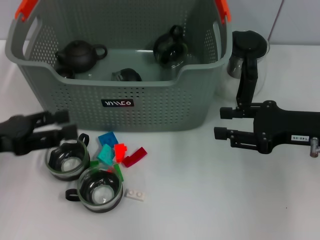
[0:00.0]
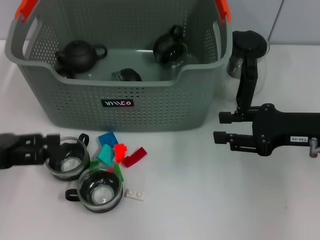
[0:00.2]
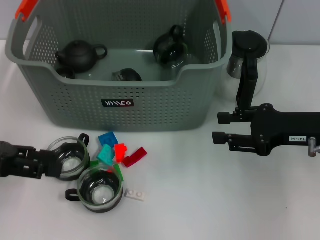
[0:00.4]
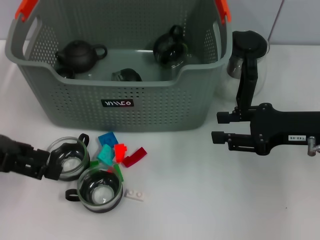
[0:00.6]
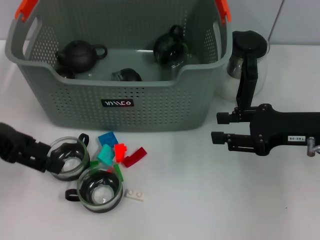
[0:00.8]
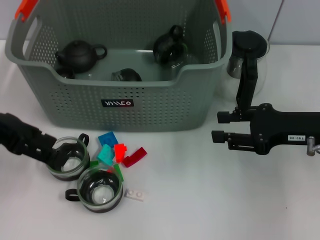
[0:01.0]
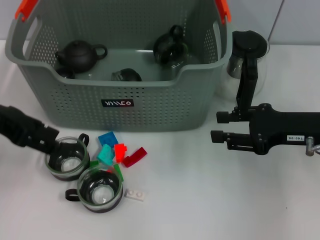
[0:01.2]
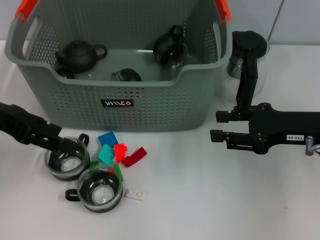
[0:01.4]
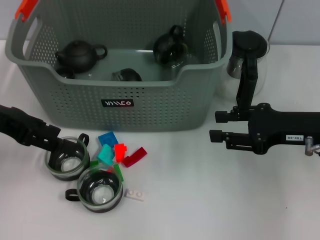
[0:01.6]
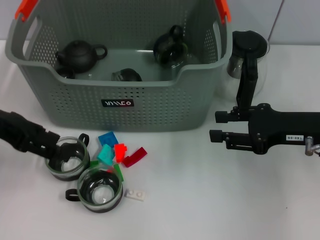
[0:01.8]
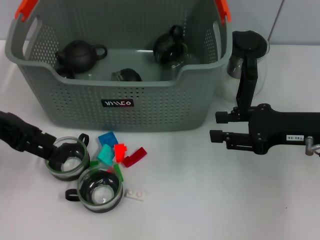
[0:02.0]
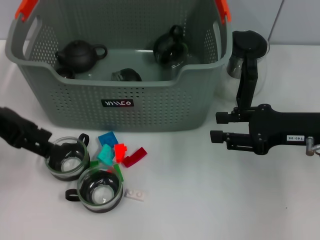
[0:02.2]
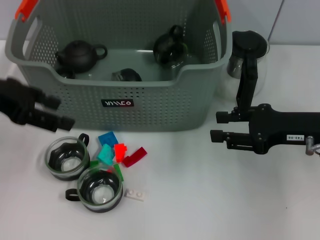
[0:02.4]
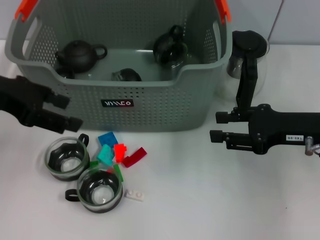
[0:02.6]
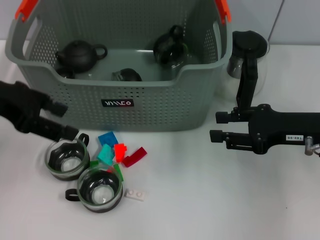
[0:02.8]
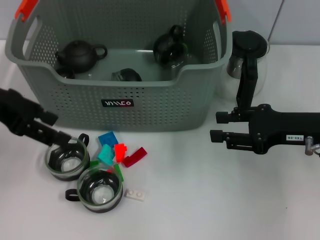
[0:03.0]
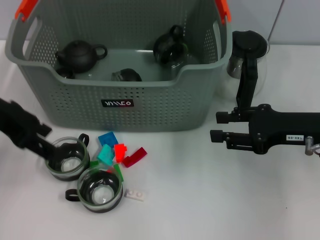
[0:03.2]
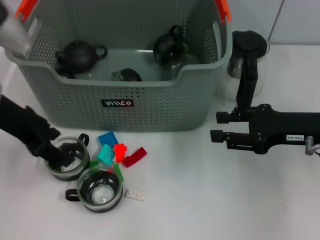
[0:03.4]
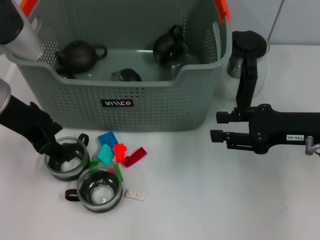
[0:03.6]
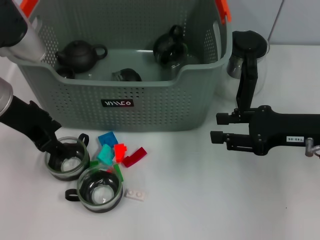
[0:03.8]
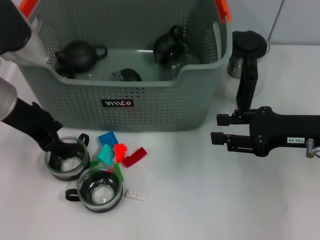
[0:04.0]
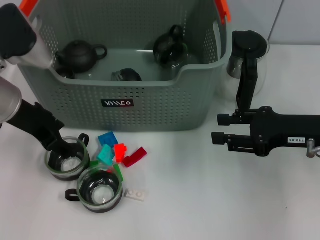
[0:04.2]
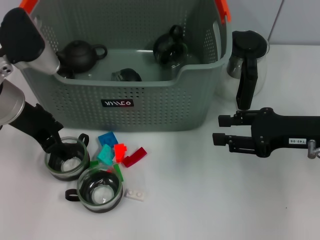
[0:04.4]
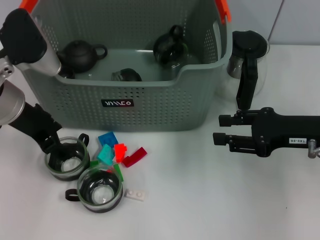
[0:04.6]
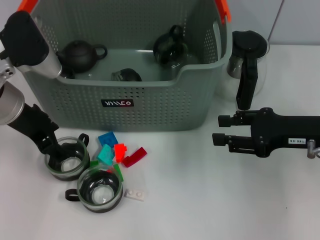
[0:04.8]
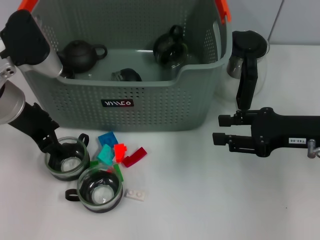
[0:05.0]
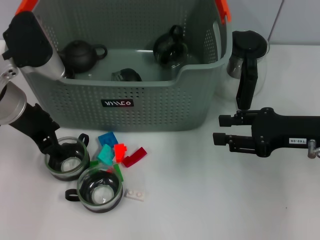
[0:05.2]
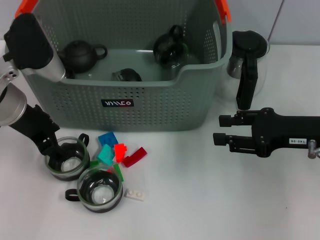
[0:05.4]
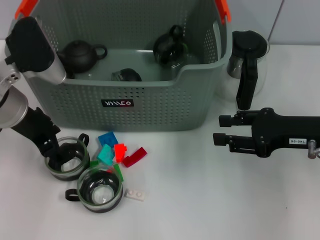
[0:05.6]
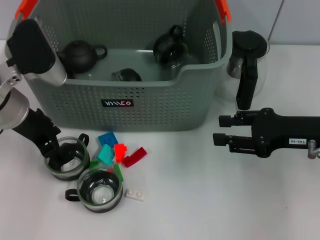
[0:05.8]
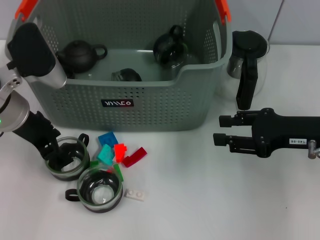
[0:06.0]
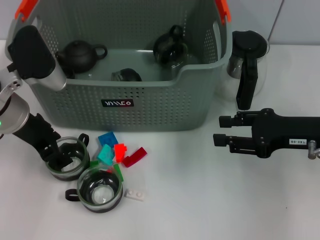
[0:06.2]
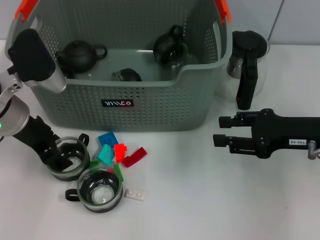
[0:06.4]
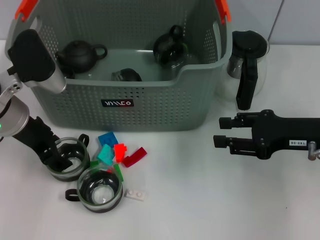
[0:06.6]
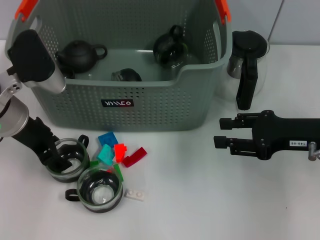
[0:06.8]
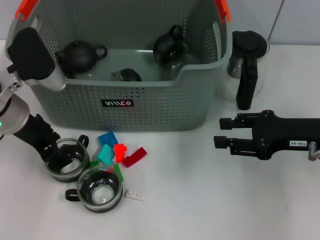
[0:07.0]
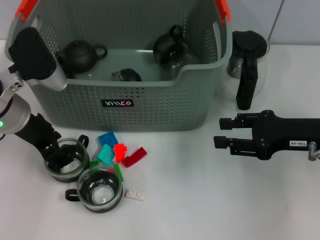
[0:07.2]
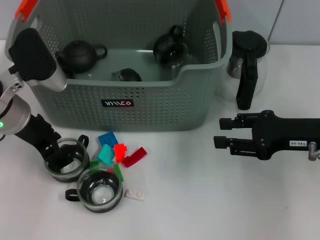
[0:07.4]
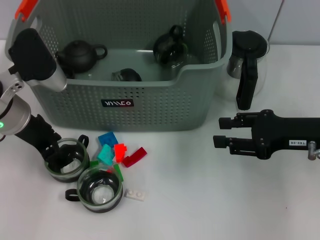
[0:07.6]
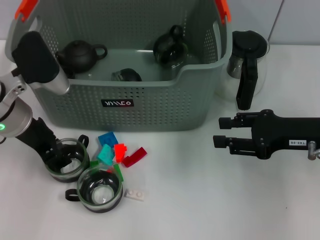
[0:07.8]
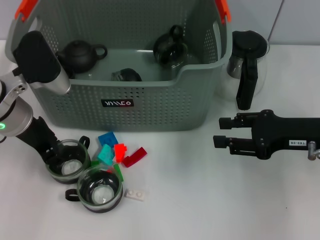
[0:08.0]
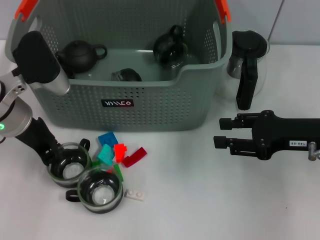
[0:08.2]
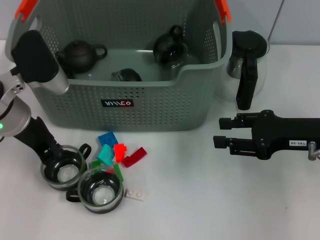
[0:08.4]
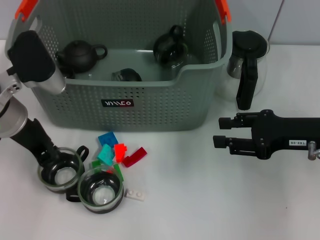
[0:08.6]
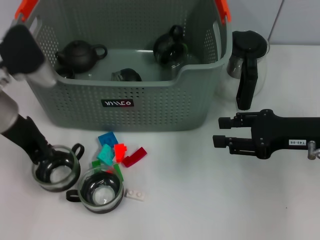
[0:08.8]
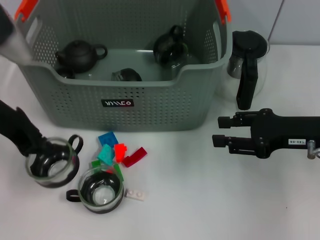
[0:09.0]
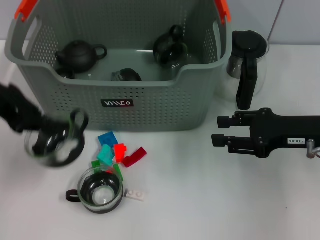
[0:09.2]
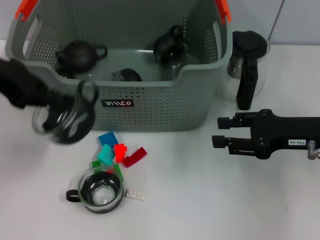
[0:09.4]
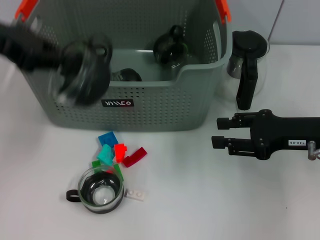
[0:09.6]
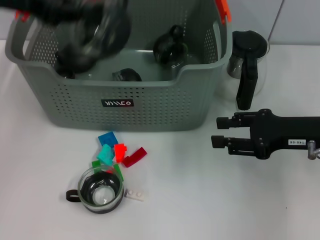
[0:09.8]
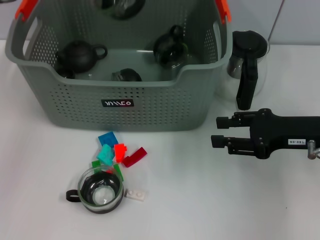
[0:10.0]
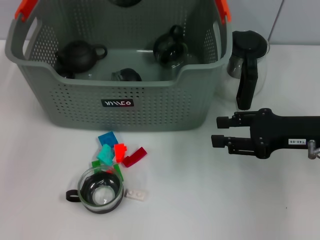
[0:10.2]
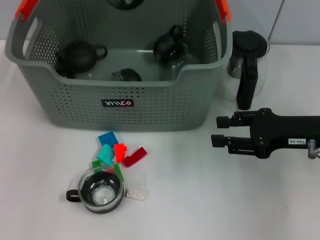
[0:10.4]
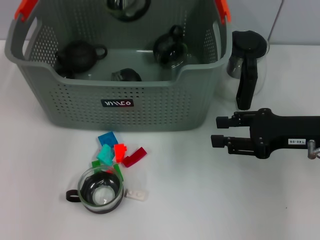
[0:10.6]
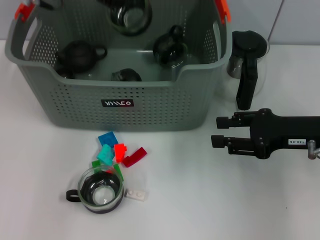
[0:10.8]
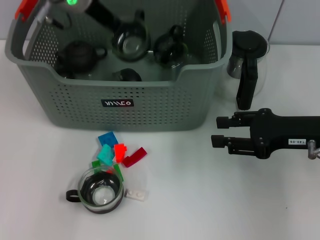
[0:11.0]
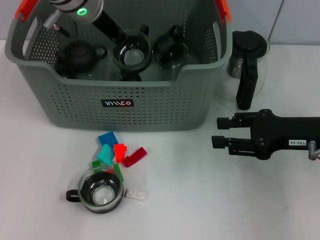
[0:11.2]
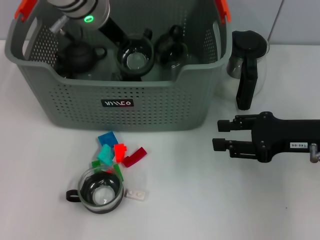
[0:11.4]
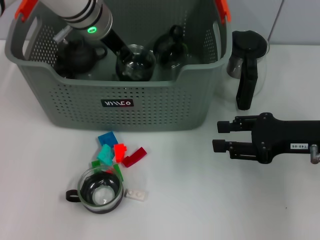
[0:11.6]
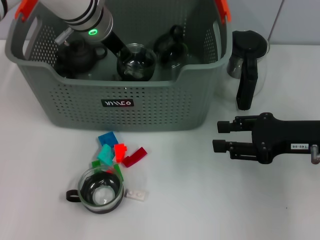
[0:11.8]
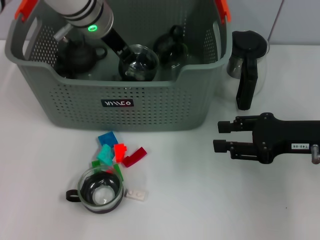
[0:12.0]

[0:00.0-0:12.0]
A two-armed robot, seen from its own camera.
Task of the whole recording: pick up the teacup on the table and place it into the storage bin, pick up the block on the table and place it into the storage bin.
Step, 0:00.0 to 0:08.8: Grasp the cup with left gripper.
0:00.0 to 0:01.6: The left gripper heads upward and forward, covering approximately 10 cm.
0:01.6 to 0:03.0: The grippers move only a little.
0:03.0 to 0:04.4: The left gripper goes roughly 10 cm downward and to the right.
0:04.4 to 0:06.0: The grippers make only small movements.
0:06.0 to 0:07.6: The two grippers keep their place.
0:07.6 to 0:09.0: The left gripper shifts approximately 5 cm upward, and closes its fingers.
0:09.0 to 0:10.4: The left gripper shifts approximately 15 cm upward and forward.
0:10.4 to 0:12.0: The left gripper is displaced downward and to the right by roughly 15 cm.

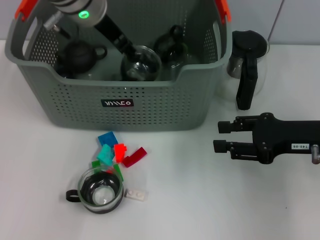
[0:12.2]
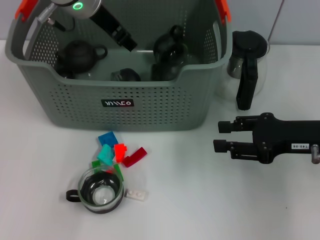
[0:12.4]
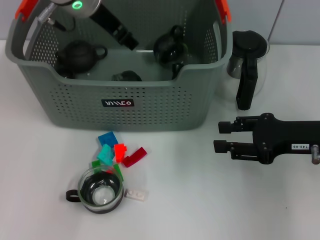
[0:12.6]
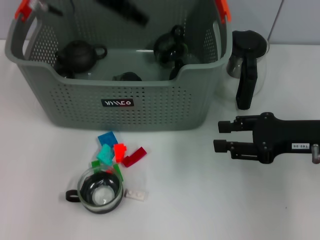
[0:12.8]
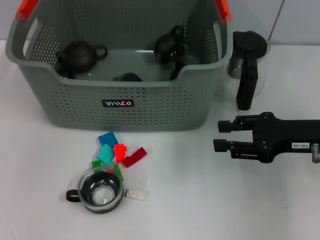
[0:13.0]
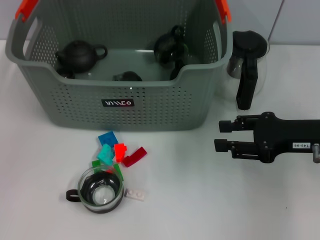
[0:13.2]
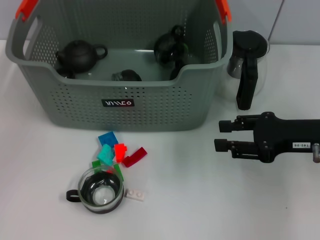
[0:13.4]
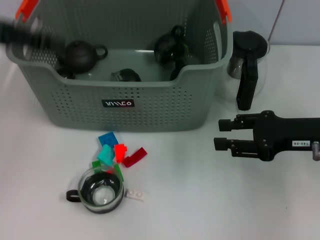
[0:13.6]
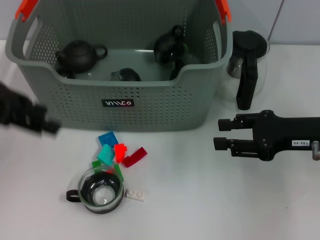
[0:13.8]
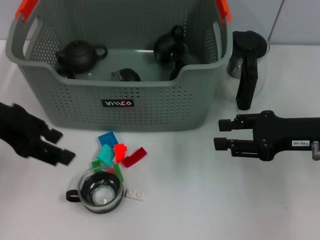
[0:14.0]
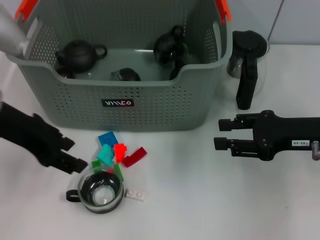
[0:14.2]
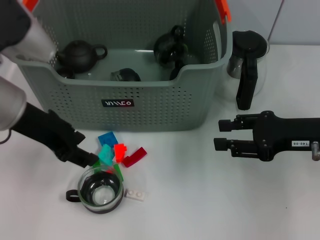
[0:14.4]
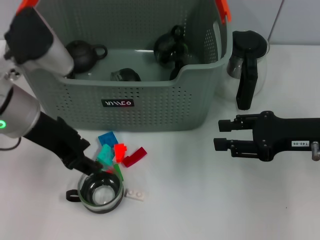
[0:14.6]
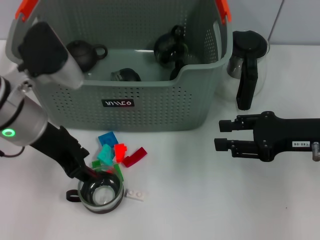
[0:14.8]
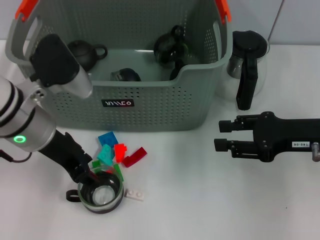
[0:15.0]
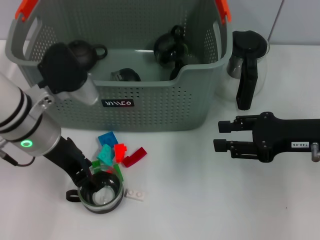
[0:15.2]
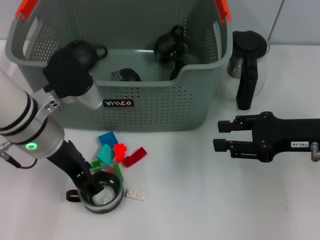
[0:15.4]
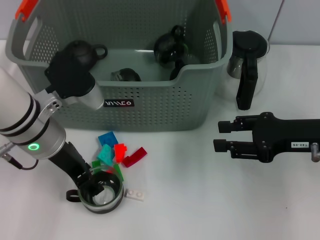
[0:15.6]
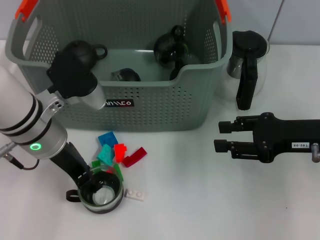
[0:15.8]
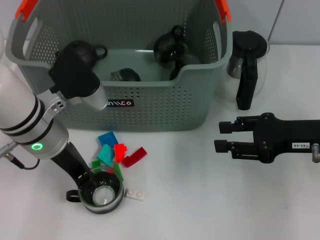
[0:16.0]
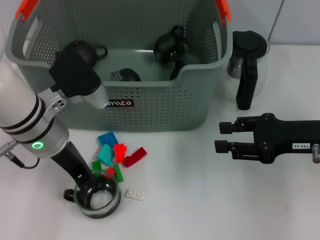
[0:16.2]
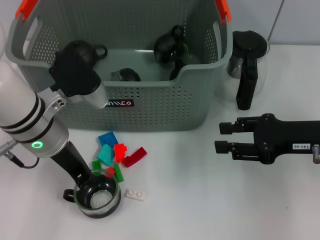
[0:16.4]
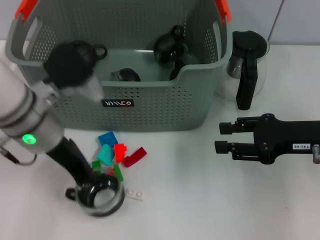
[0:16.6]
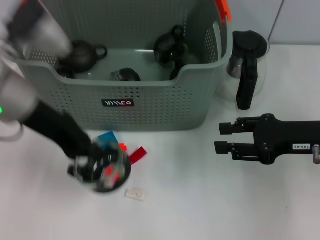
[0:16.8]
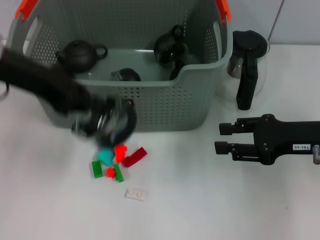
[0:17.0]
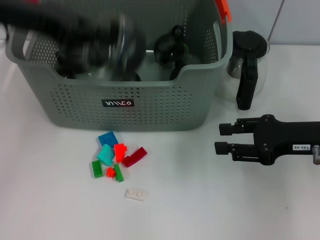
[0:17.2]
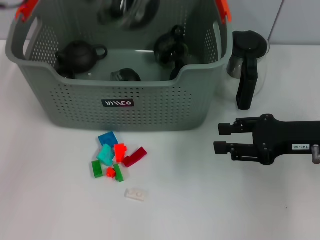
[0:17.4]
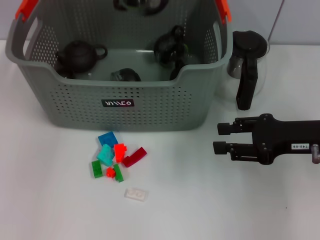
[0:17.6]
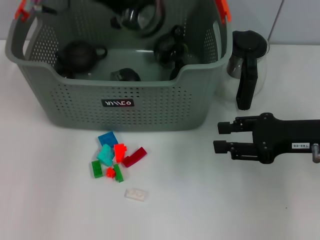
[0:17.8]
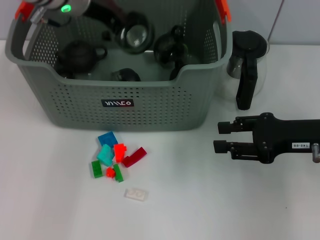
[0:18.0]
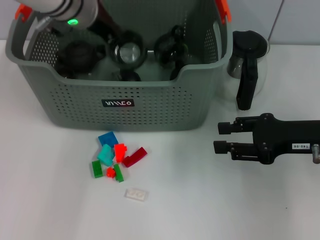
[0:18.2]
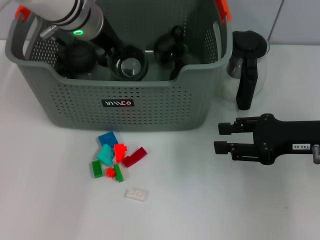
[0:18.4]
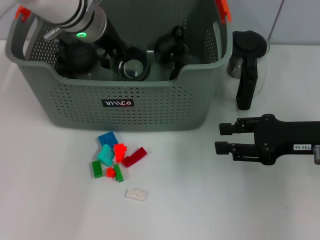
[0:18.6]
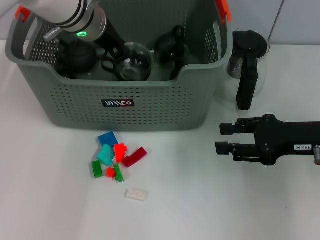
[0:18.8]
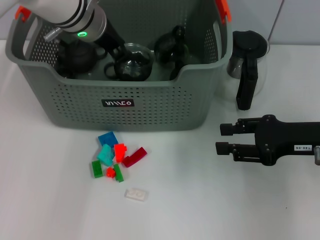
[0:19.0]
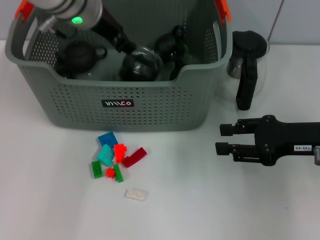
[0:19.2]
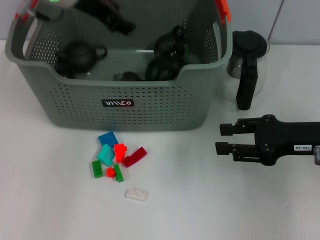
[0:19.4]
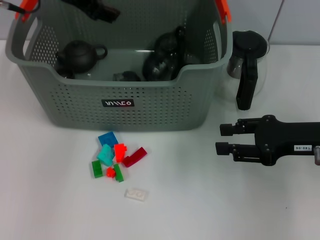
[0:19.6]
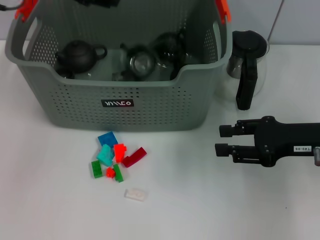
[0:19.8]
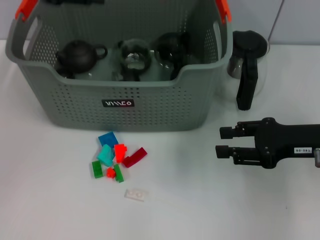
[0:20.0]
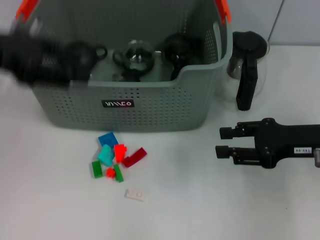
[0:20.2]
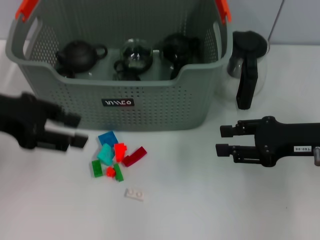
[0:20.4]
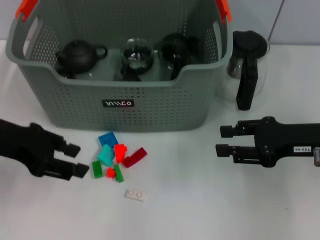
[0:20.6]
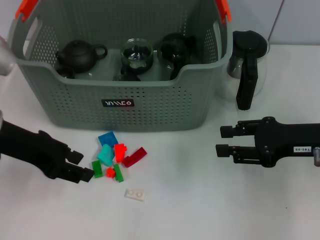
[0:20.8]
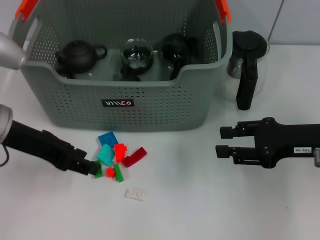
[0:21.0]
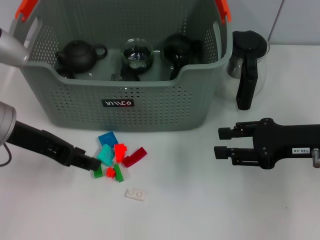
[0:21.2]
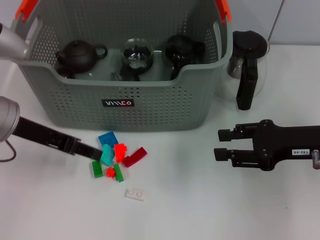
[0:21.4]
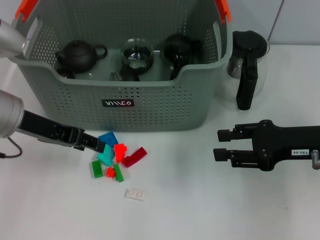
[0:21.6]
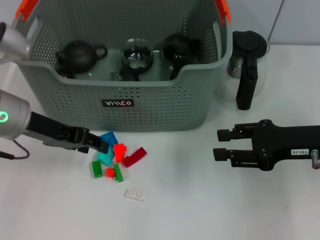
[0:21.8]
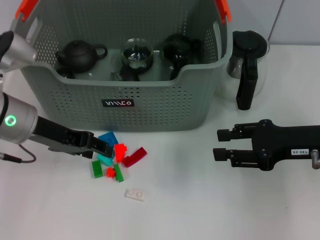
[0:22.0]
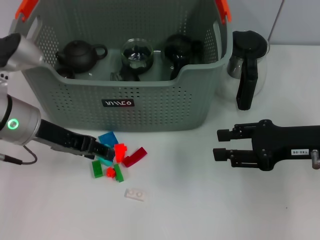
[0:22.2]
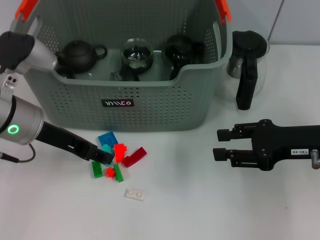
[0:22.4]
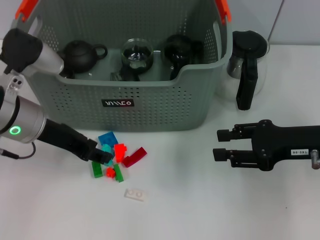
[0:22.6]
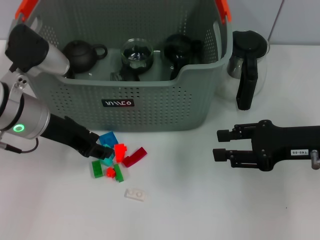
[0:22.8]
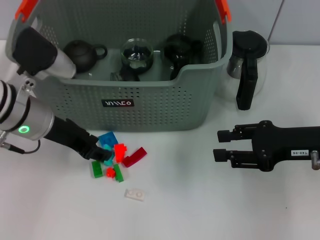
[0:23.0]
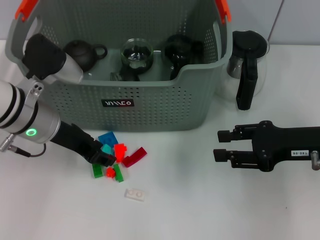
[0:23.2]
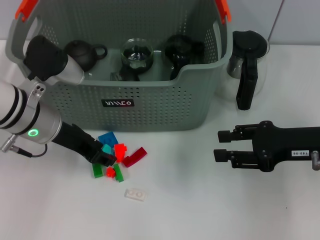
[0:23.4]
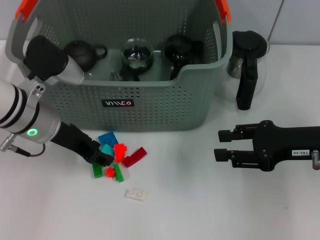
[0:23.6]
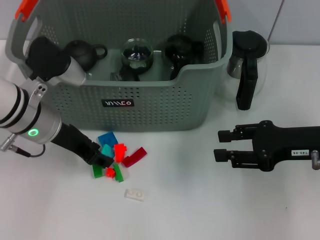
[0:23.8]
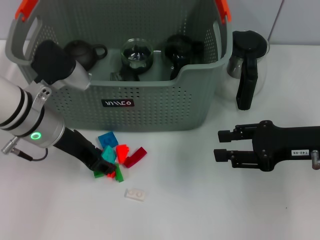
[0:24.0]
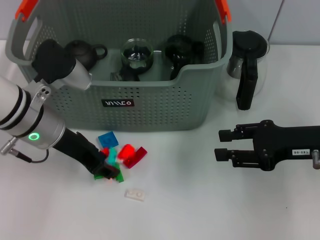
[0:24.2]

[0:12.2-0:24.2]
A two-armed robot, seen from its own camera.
Task of the whole recording: pick up the teacup on the table and place it into the storage bin, pick up the block on the table and place it into the storage bin.
Step, 0:13.0 to 0:16.6: Grasp the cup with left gripper.
Step, 0:16.8 to 0:19.2: Place the cup in the storage box with left gripper.
0:12.2 to 0:13.8: The left gripper moves to the left and backward, roughly 20 cm.
0:13.8 to 0:15.2: The left gripper travels downward and to the right by about 15 cm.
0:15.2 to 0:16.6: The left gripper closes.
0:16.6 to 0:18.2: The left gripper is displaced forward and upward by some 15 cm.
0:18.2 to 0:19.8: The left gripper shifts roughly 15 cm upward, to the left and backward, and opens.
0:19.8 to 0:21.2: The left gripper goes approximately 15 cm downward and backward.
0:22.6 to 0:24.2: The grippers make only small movements.
